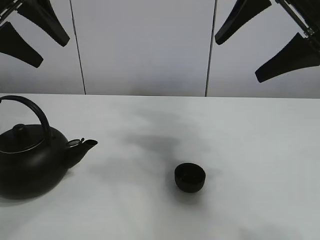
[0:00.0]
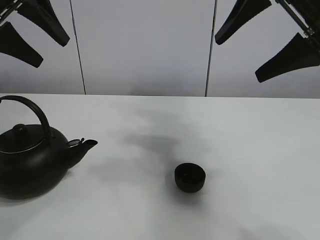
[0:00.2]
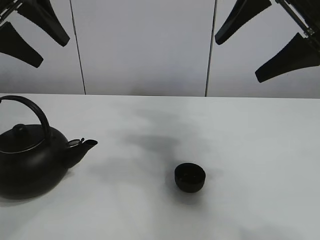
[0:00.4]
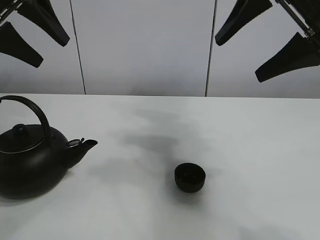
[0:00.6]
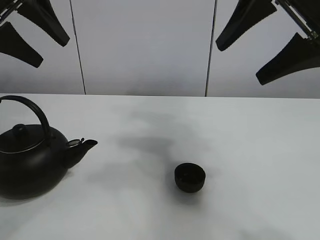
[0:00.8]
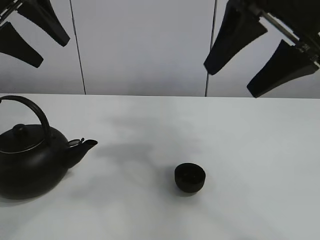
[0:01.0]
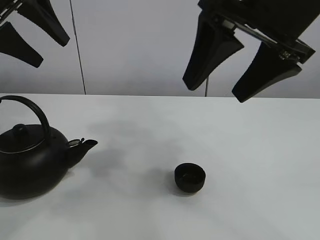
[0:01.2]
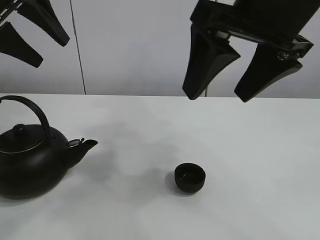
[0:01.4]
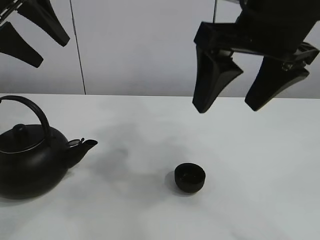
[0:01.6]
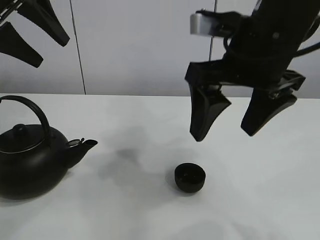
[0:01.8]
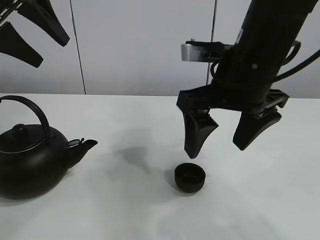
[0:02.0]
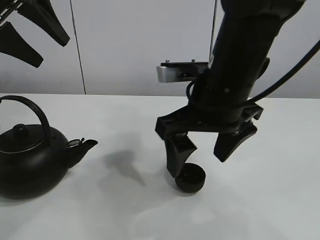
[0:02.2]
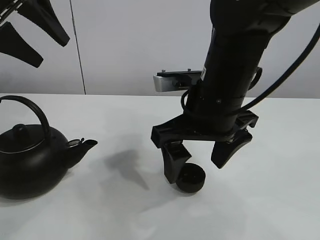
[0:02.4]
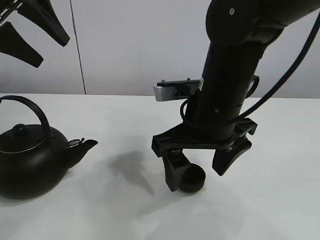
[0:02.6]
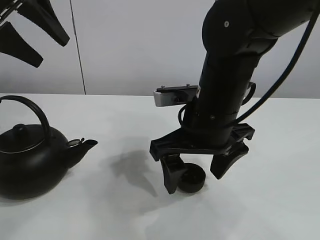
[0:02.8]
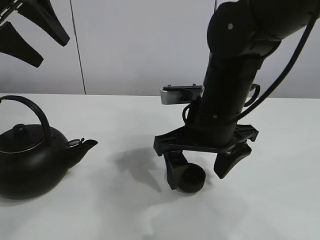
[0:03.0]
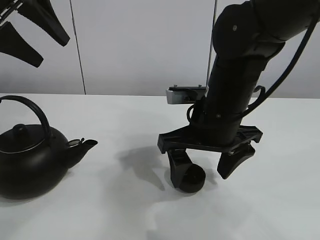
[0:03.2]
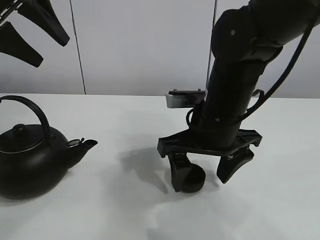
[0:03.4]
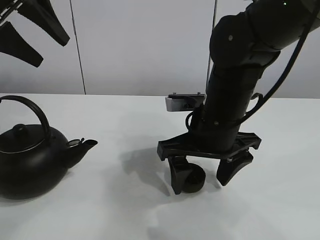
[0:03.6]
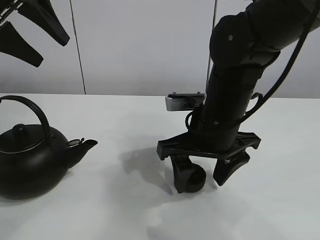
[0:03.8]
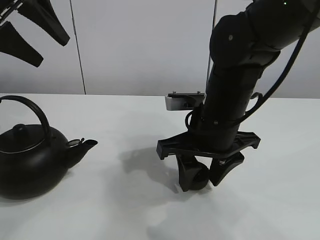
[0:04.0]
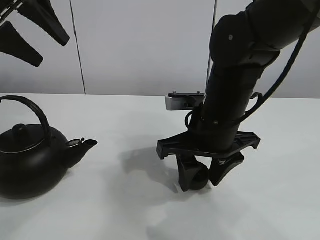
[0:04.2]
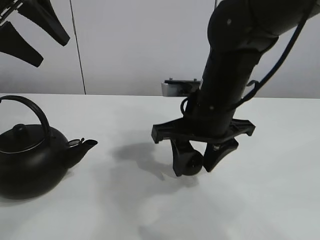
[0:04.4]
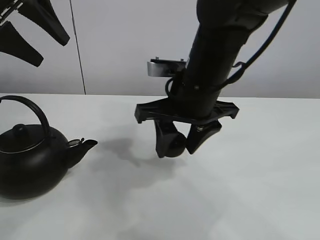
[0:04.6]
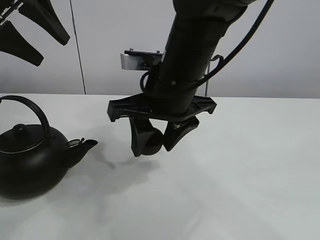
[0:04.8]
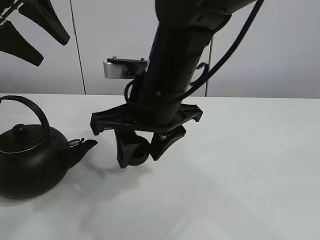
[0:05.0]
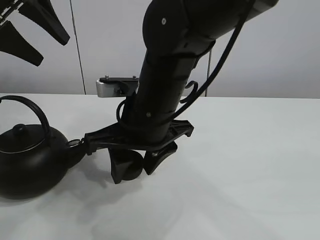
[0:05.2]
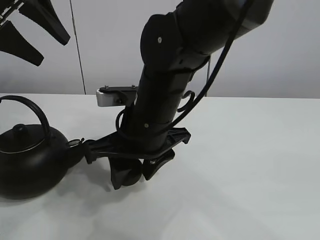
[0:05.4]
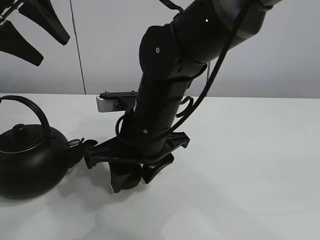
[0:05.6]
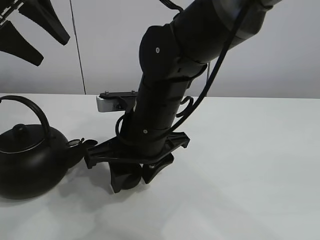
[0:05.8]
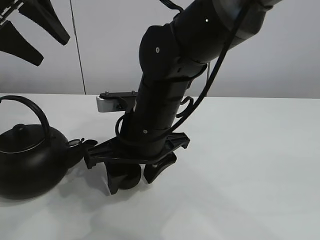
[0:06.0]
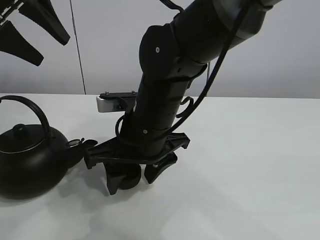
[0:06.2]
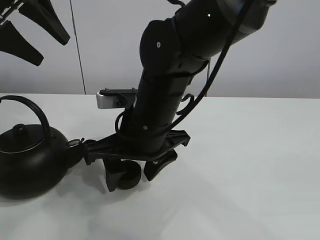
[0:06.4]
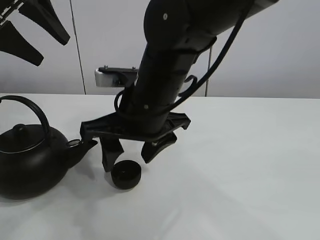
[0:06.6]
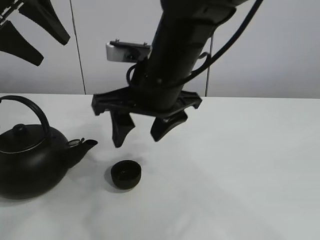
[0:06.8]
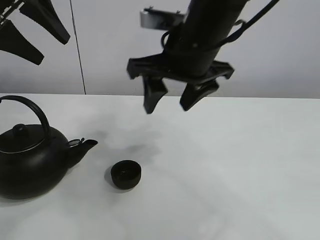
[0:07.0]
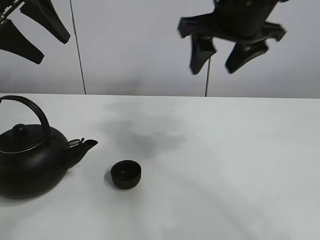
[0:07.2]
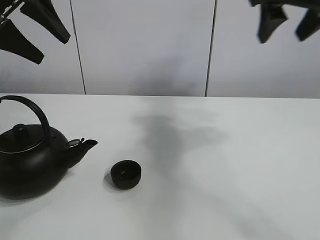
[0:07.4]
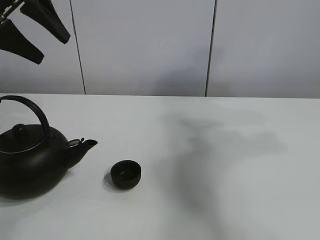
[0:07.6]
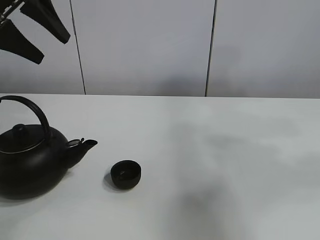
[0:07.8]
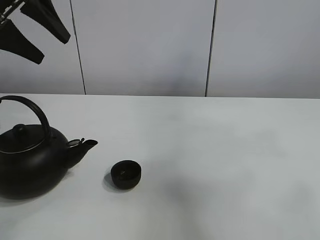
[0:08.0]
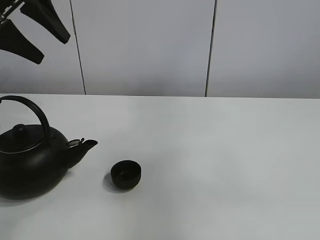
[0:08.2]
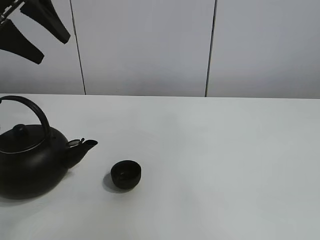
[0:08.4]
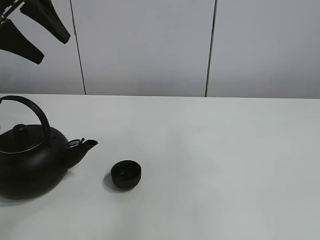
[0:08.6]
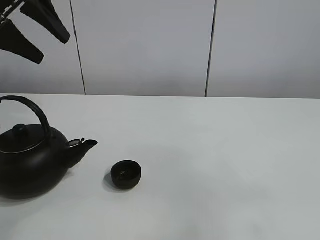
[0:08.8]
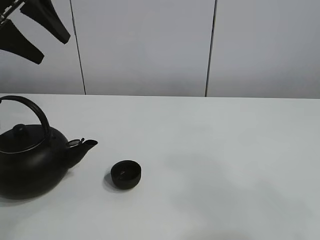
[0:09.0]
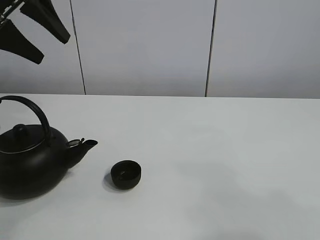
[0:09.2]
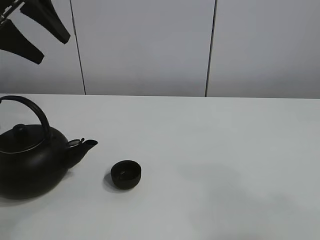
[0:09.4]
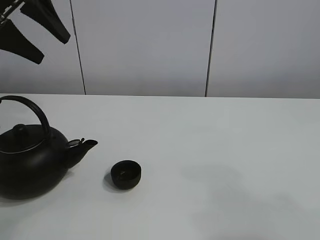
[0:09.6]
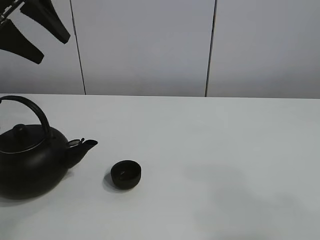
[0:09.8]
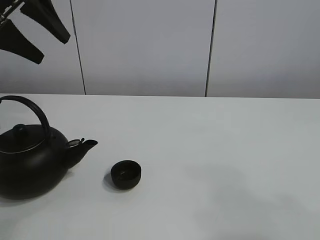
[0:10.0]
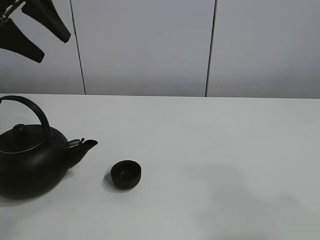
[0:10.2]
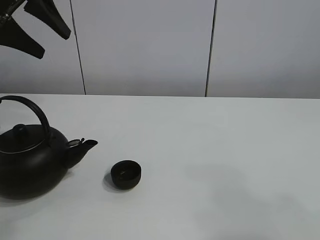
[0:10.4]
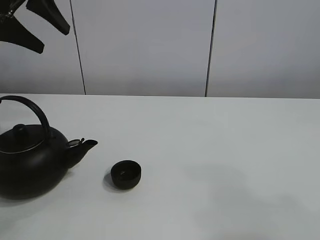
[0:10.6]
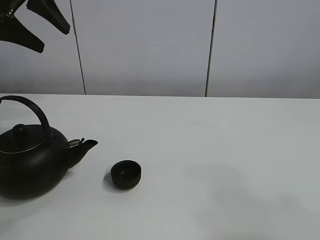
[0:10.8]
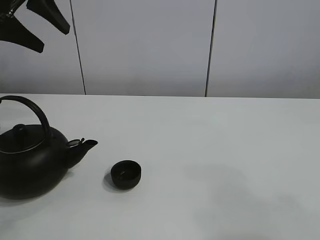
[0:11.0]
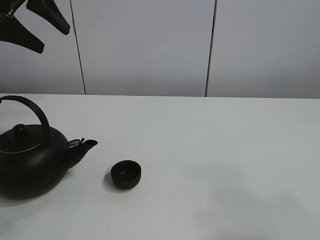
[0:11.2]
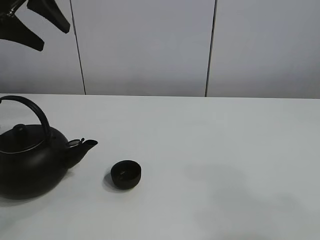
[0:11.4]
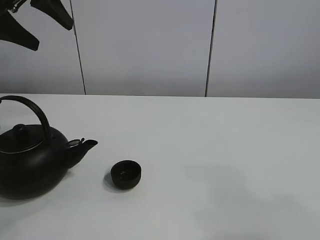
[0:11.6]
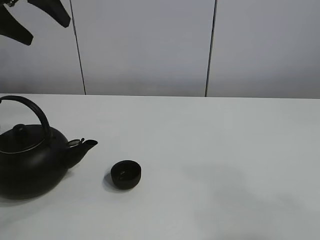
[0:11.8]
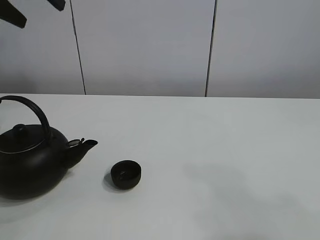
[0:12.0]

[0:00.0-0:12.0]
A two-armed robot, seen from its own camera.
Task of the whole recording: pour tea into the teacup.
Step, 0:00.0 to 0:04.2: Pick up the teacup with the right gripper.
Step, 0:04.4 to 0:05.8: Place the teacup in the center of view with the right gripper.
0:01.6 to 0:03.0: The right gripper is displaced downward by approximately 15 cm.
0:03.0 to 0:04.4: The right gripper closes its fingers.
0:04.4 to 0:06.0: The right gripper heads to the left, covering roughly 10 cm, and opens.
0:06.0 to 0:07.6: The right gripper moves to the right and upward, approximately 40 cm.
0:07.6 to 0:09.0: The right gripper travels backward by roughly 30 cm.
0:09.0 to 0:10.4: There are only small adjustments of the grippers.
0:10.4 to 0:12.0: There are only small adjustments of the grippers.

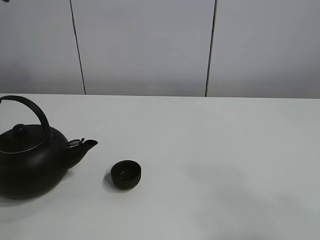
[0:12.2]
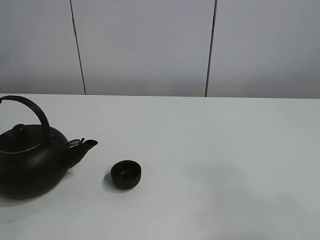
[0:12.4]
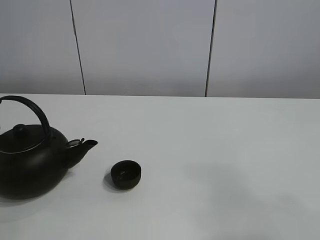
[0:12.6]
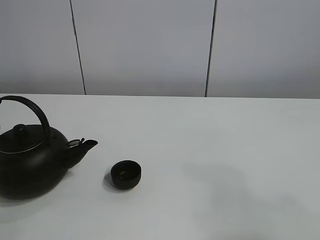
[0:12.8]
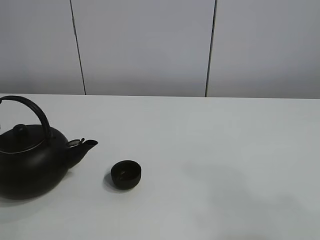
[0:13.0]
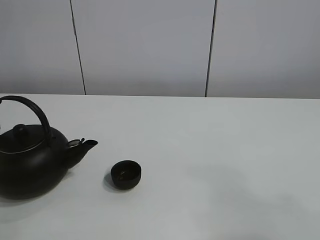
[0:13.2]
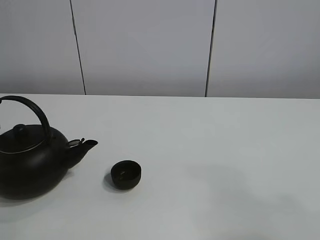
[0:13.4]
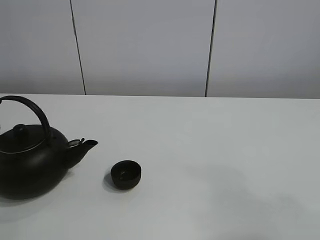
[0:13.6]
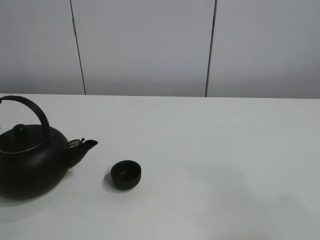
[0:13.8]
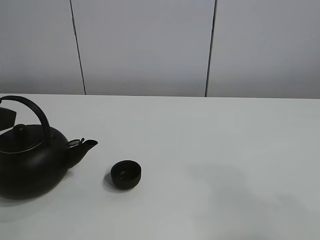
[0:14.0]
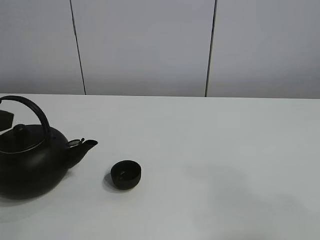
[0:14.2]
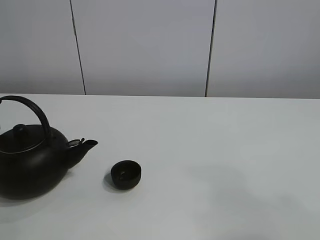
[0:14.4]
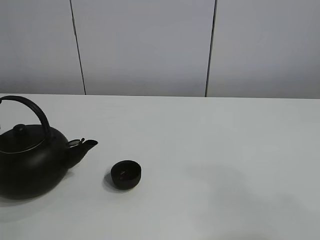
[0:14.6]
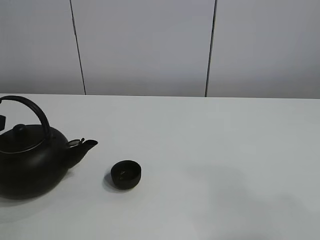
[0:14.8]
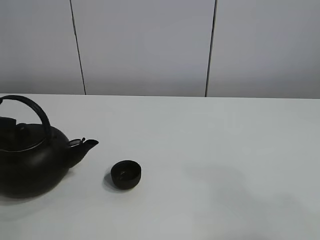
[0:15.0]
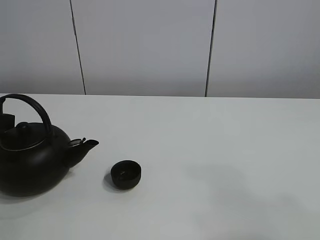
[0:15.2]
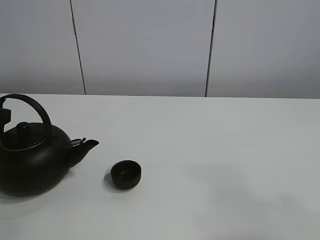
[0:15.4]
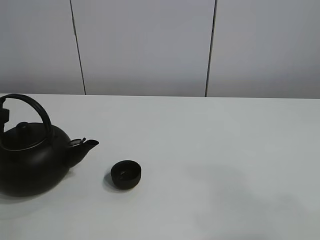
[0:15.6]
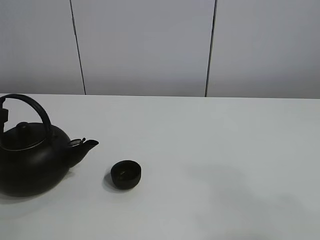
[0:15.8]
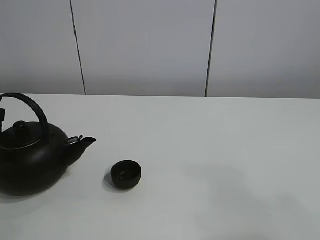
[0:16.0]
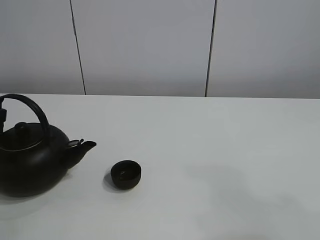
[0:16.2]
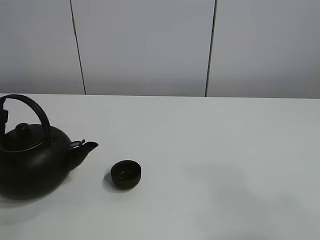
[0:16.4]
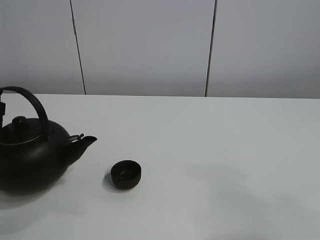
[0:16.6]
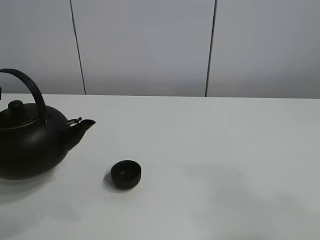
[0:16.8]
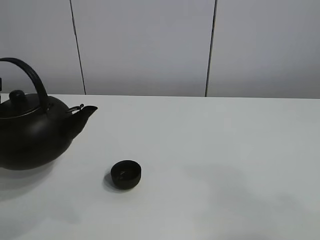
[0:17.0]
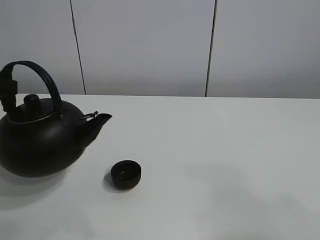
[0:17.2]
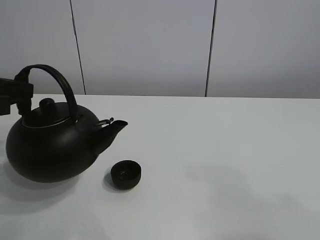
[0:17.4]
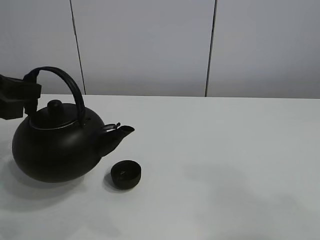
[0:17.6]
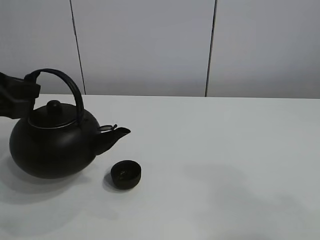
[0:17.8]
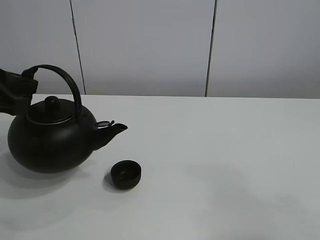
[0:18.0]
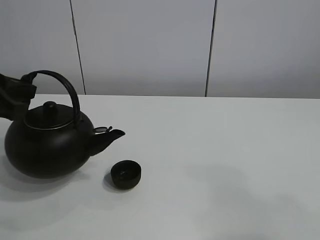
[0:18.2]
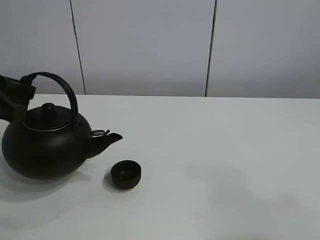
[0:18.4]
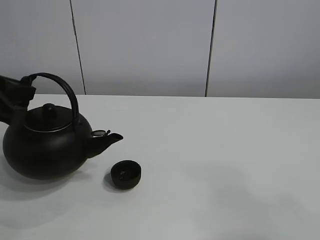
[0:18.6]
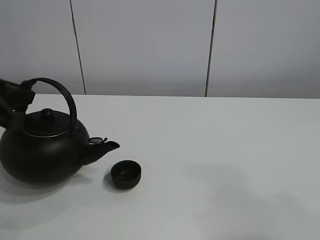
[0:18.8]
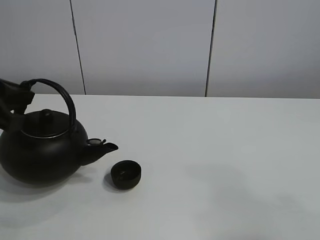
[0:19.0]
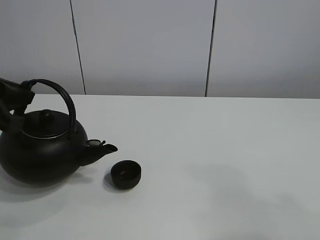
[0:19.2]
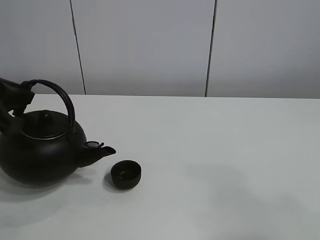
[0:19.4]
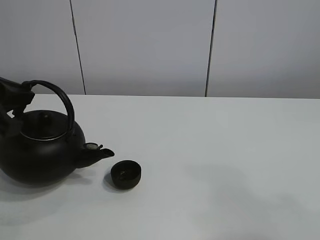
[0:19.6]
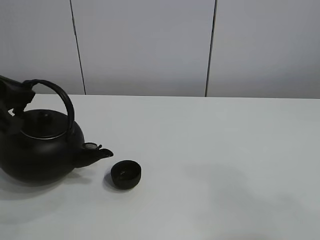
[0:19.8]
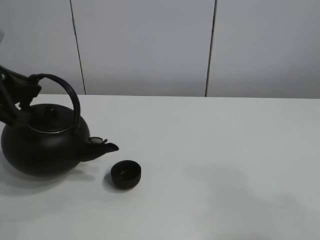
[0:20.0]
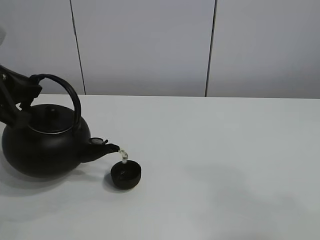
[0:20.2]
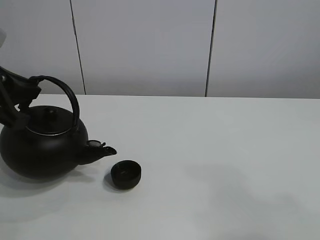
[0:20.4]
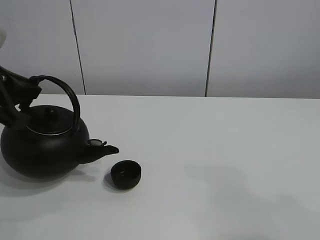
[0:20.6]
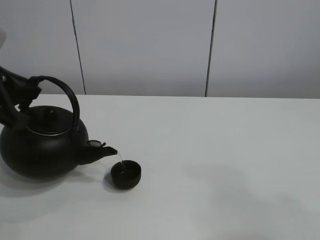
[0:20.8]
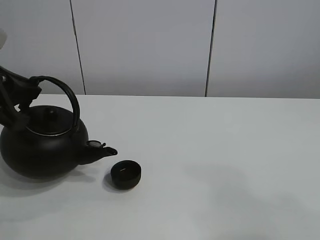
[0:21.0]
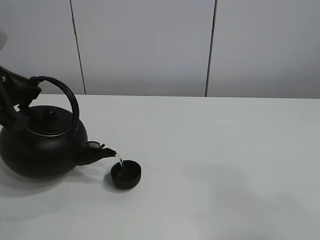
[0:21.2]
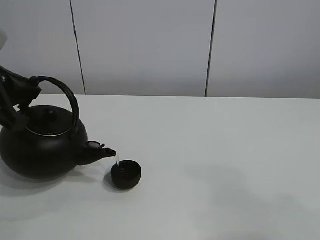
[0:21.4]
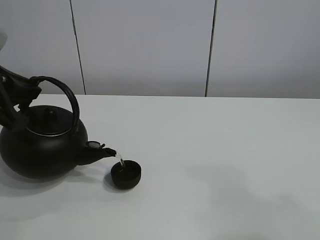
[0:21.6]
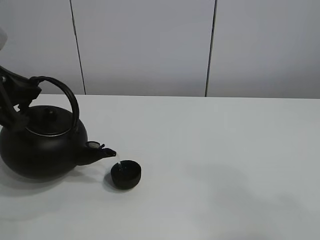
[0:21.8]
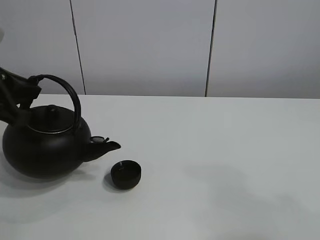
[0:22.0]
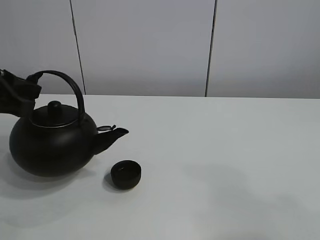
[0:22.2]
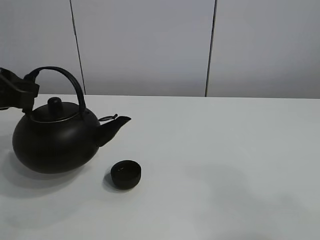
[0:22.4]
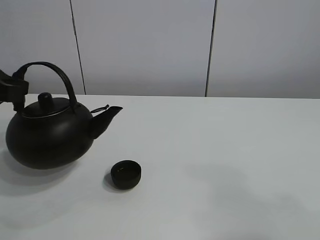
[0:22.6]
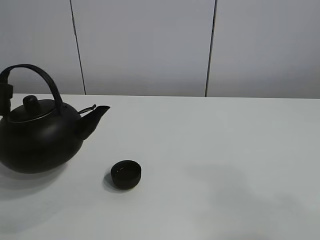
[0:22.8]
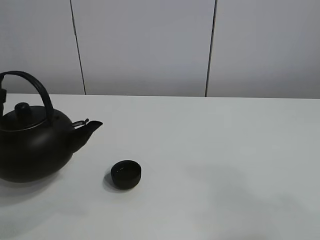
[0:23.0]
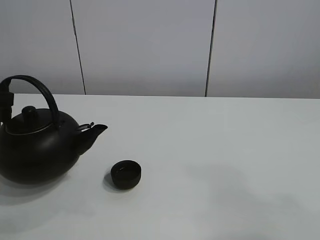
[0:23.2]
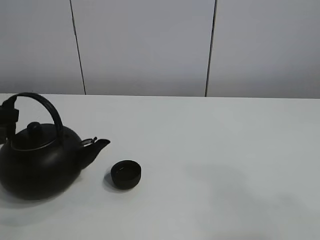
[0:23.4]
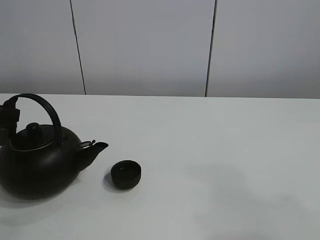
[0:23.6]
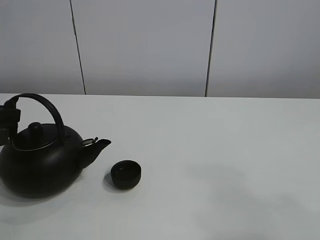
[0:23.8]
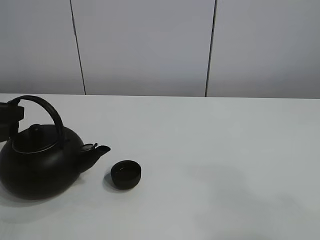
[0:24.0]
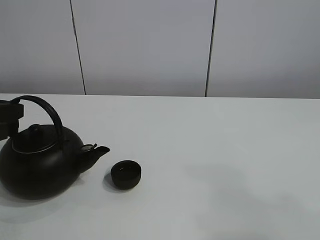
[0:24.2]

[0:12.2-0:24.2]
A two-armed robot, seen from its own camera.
Task of the whole recording: pour tea into the teacup.
Step, 0:12.2 to 0:16.4: Pick up the teapot with the left gripper.
Step, 0:16.6 to 0:22.0: Pour tea into the teacup with the left gripper.
0:13.8 to 0:15.2: The left gripper shifts roughly 10 cm downward and forward.
0:15.2 to 0:16.6: The left gripper closes.
0:16.6 to 0:18.2: The left gripper shifts about 5 cm to the right.
0:18.2 to 0:19.8: The grippers stay close to where they were, moving slightly.
0:19.8 to 0:21.2: Both grippers stay put.
0:22.6 to 0:24.2: The left gripper changes place by approximately 5 cm.
